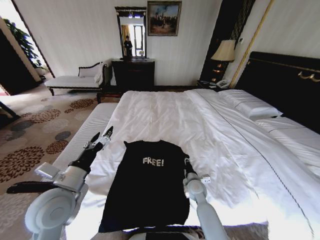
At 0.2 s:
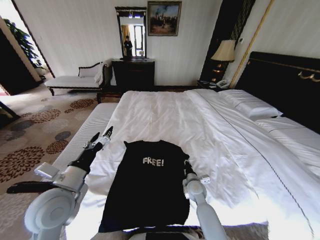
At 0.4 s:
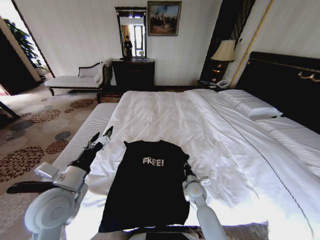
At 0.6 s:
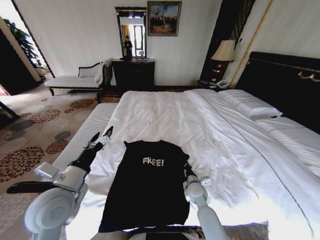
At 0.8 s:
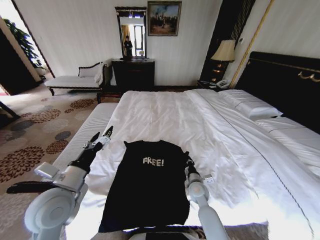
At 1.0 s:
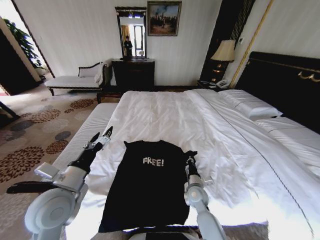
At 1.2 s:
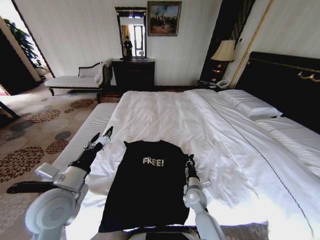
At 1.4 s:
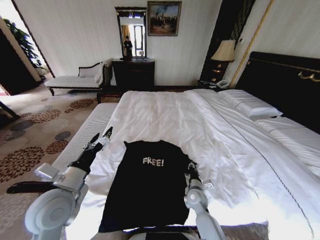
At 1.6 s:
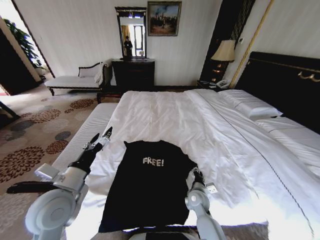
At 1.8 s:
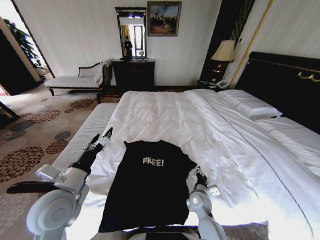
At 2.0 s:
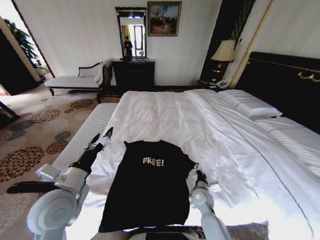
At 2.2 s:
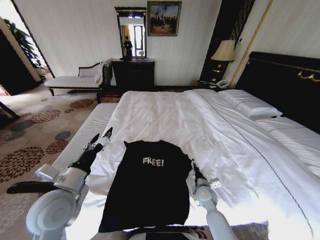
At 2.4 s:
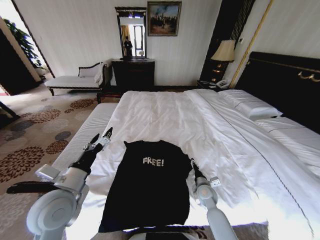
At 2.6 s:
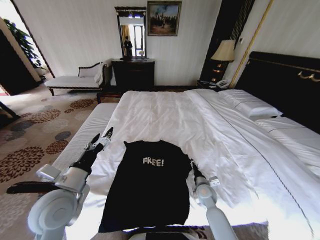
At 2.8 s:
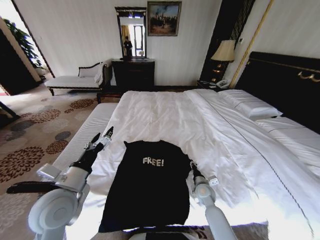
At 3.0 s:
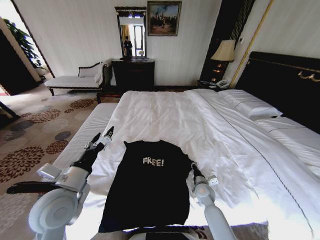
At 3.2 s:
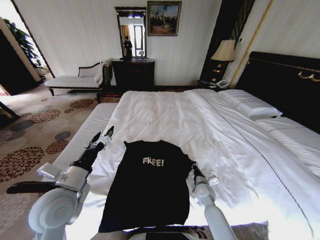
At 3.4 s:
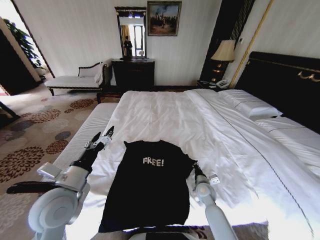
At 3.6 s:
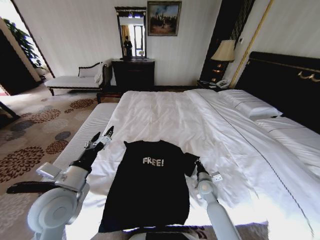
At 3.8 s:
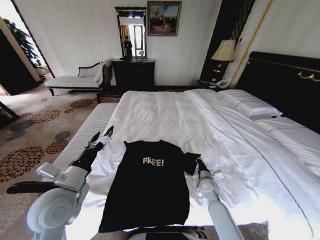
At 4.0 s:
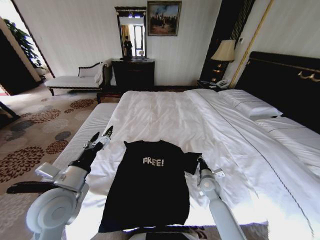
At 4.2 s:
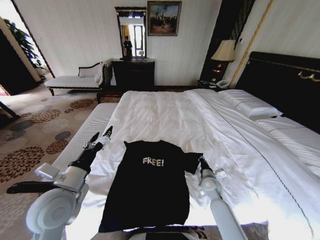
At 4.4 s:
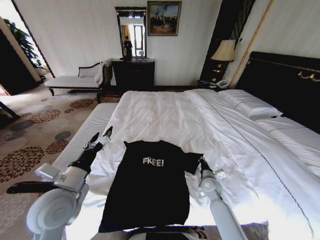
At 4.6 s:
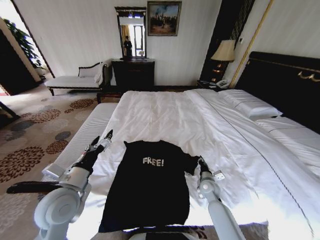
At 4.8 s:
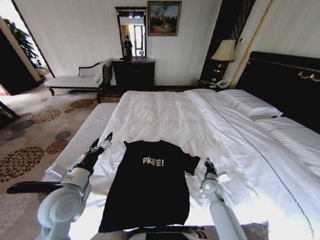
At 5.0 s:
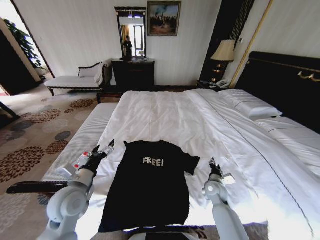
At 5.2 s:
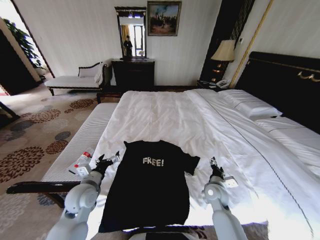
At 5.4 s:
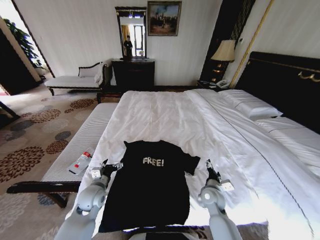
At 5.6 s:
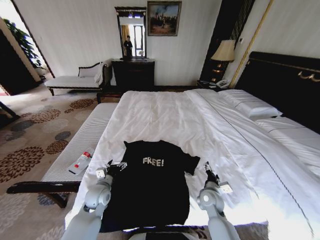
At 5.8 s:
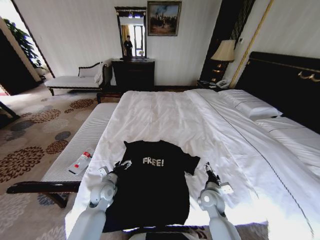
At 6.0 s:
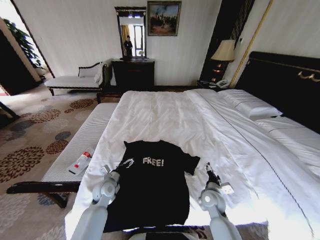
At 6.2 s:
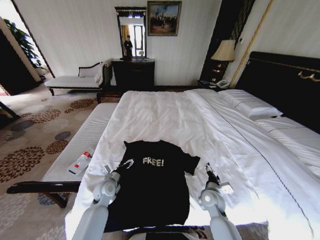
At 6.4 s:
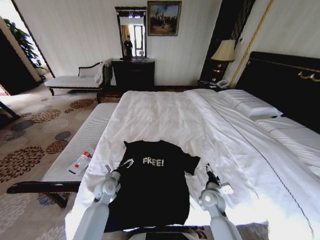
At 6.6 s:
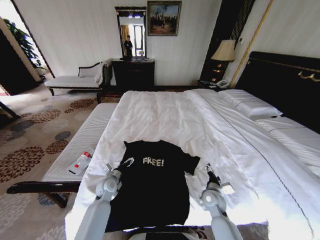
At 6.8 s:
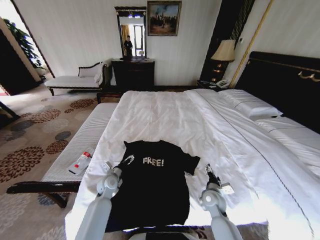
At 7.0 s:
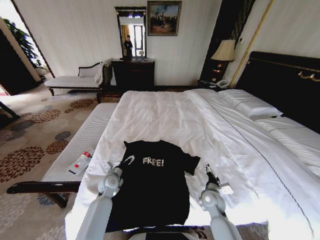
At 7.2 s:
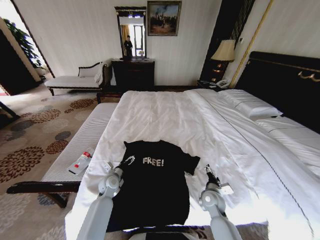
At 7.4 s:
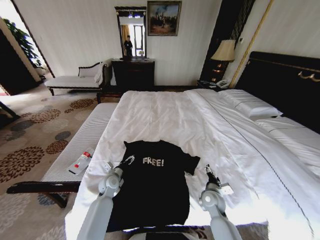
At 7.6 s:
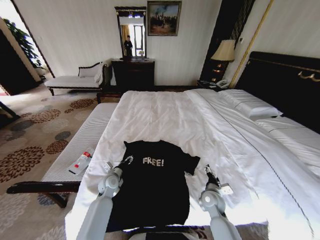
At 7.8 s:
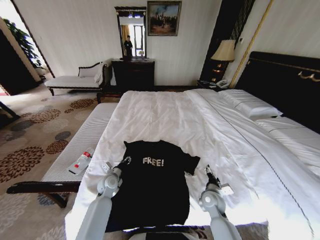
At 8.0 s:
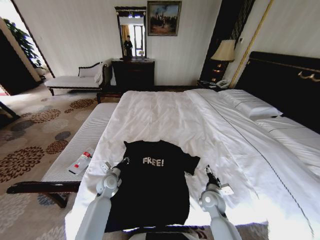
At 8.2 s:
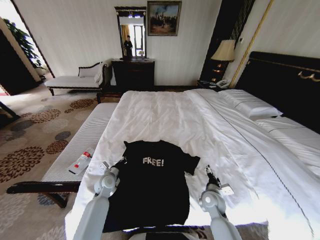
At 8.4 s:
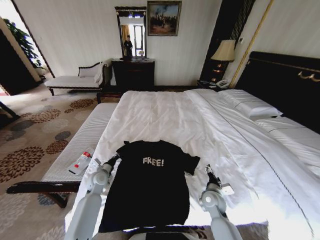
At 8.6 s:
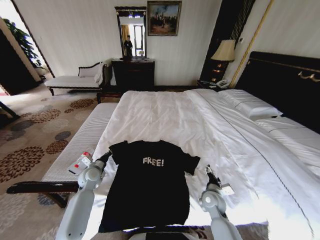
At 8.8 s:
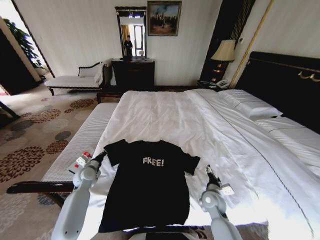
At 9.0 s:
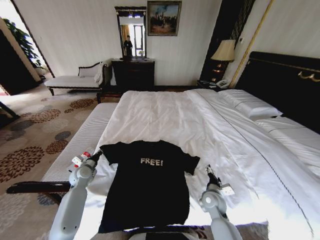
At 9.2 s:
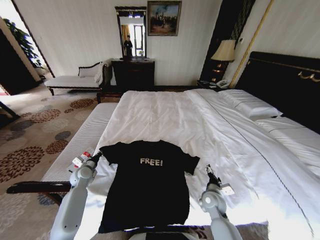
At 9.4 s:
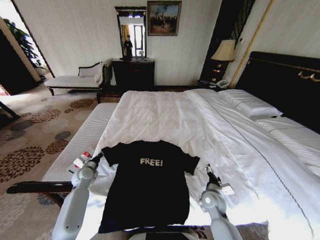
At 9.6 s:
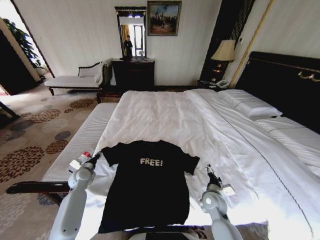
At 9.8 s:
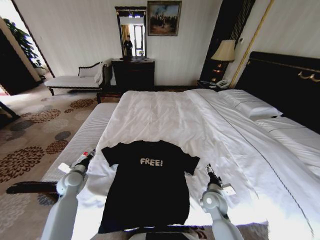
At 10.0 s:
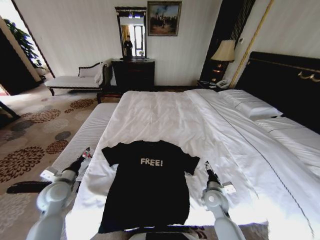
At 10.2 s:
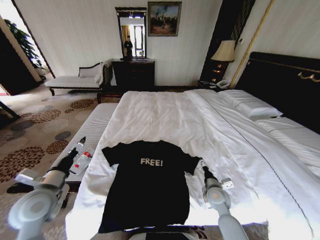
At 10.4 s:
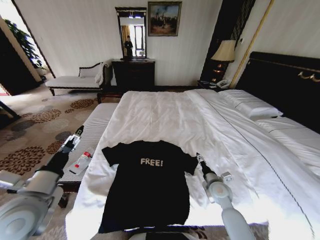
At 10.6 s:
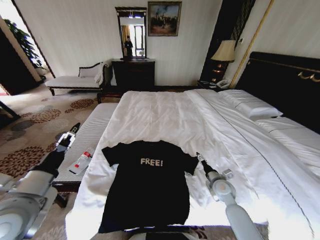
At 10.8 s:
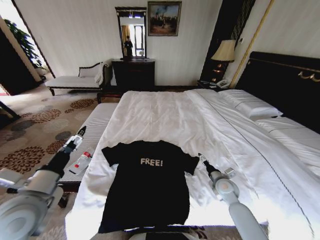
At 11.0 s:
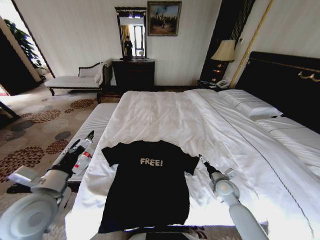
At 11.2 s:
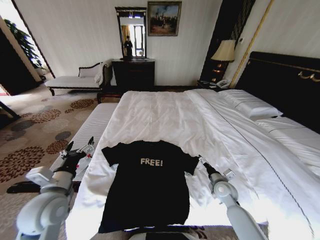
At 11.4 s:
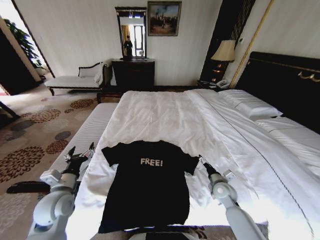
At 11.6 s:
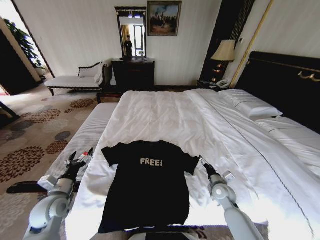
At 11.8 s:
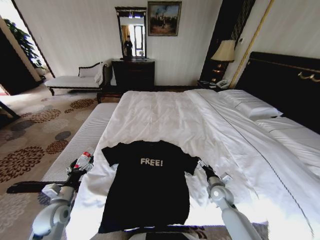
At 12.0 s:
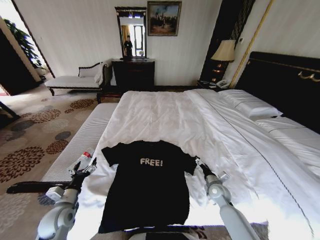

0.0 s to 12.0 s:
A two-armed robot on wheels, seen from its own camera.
Task of the whole recording: Fold the clothes on the bed.
0.0 to 1.6 s: The right gripper closes and opens again.
1.6 to 3.0 s: The right gripper changes place by roughly 5 cm, and opens, then closes again.
3.0 to 4.4 s: There are only small adjustments of the grippers.
4.4 to 6.0 s: The left gripper travels downward and forward by about 25 cm, while the right gripper travels backward by approximately 5 cm, and opens its fingers.
6.0 to 7.6 s: The grippers move only a little.
7.6 to 9.0 s: The left gripper heads to the left, covering roughly 15 cm, and closes.
9.0 to 10.4 s: The left gripper is displaced upward and backward by some 30 cm, and opens up; the right gripper changes place by about 5 cm.
10.4 to 12.0 s: The left gripper travels downward by about 20 cm. Meanwhile the right gripper shifts some 5 cm downward.

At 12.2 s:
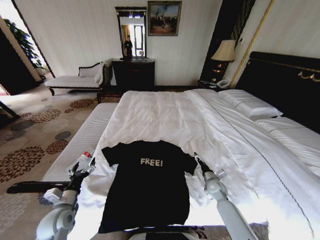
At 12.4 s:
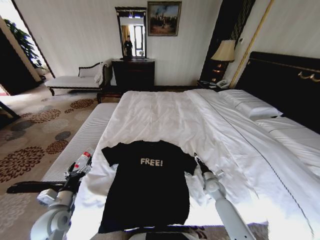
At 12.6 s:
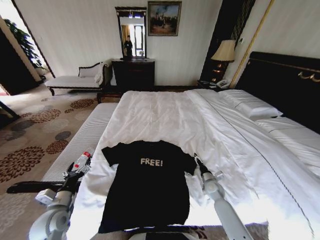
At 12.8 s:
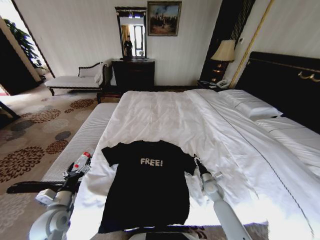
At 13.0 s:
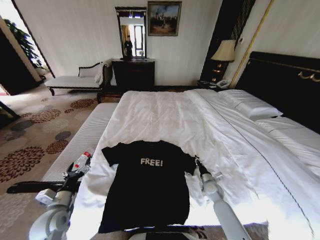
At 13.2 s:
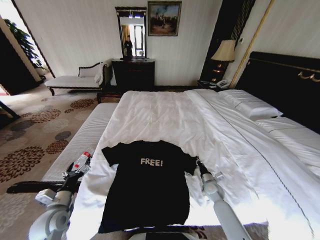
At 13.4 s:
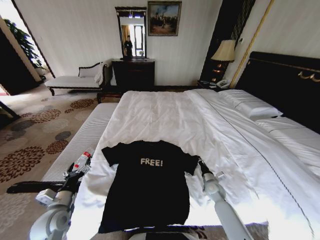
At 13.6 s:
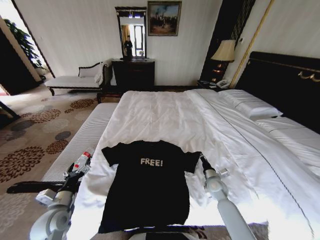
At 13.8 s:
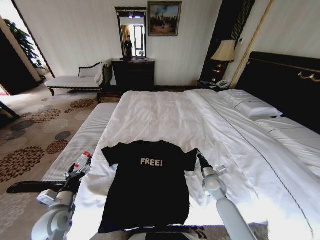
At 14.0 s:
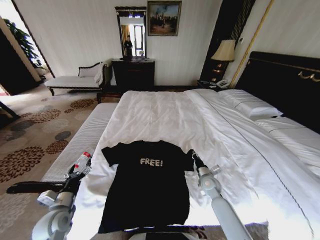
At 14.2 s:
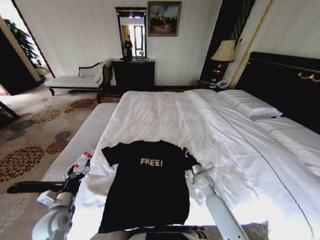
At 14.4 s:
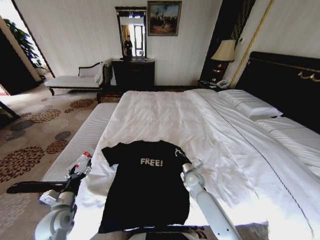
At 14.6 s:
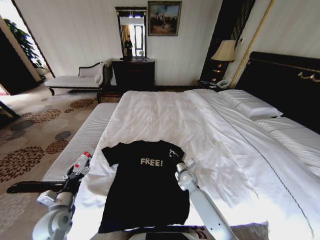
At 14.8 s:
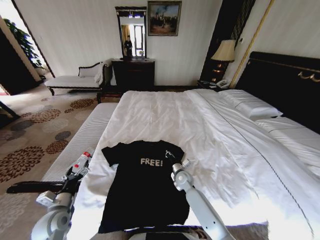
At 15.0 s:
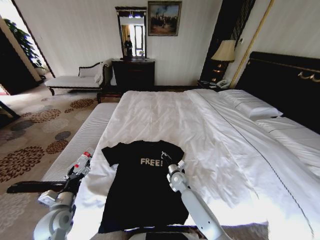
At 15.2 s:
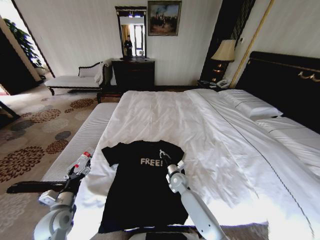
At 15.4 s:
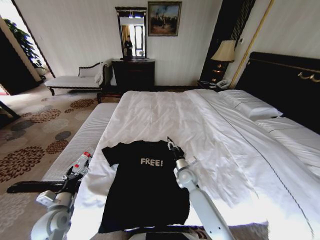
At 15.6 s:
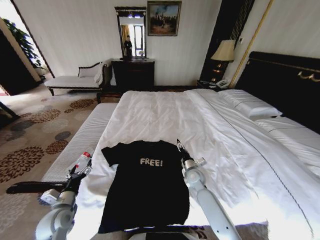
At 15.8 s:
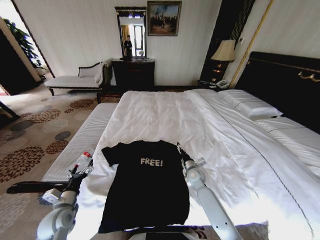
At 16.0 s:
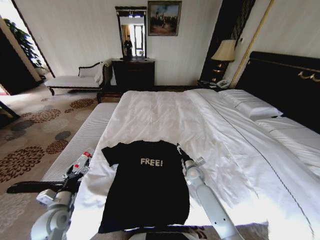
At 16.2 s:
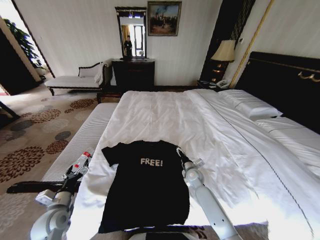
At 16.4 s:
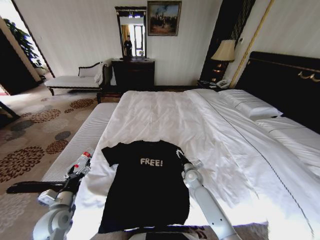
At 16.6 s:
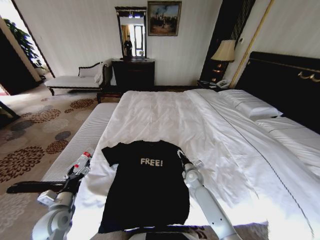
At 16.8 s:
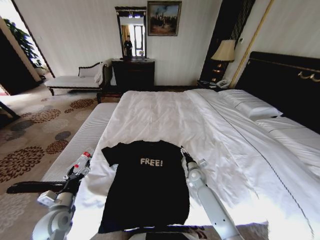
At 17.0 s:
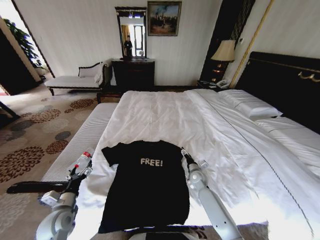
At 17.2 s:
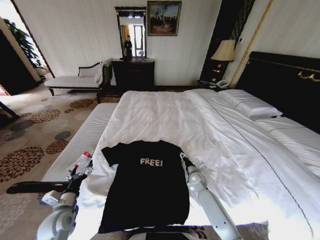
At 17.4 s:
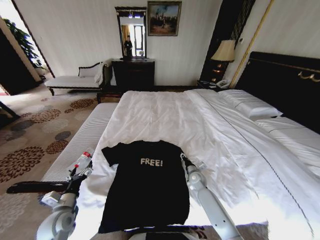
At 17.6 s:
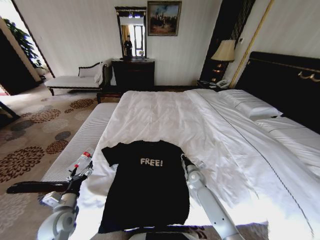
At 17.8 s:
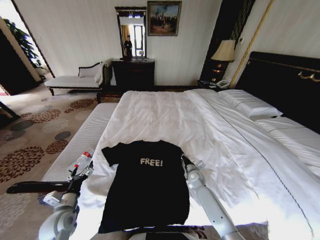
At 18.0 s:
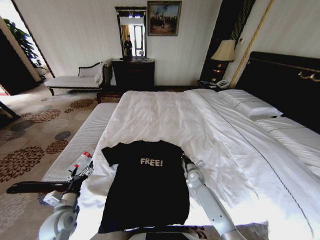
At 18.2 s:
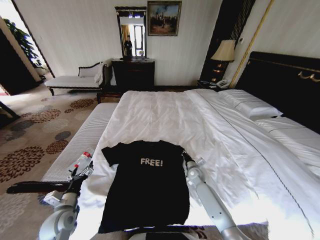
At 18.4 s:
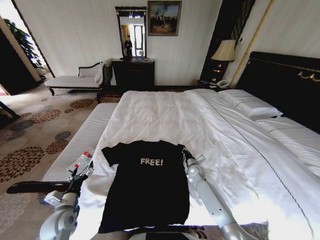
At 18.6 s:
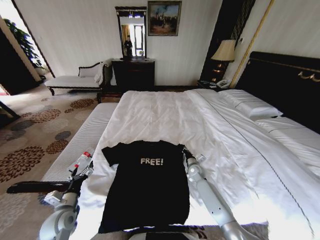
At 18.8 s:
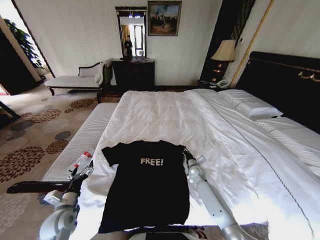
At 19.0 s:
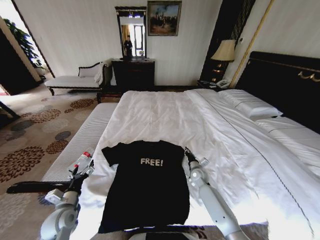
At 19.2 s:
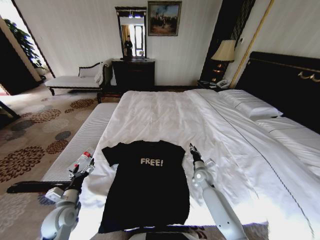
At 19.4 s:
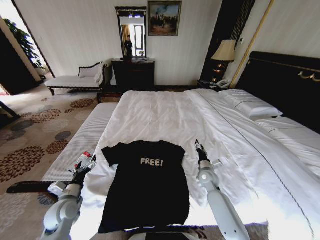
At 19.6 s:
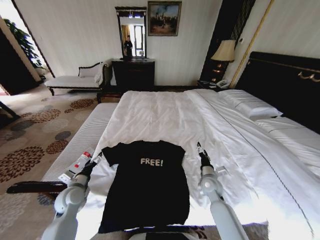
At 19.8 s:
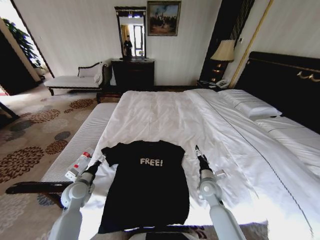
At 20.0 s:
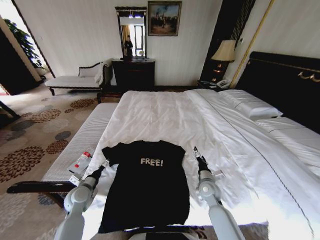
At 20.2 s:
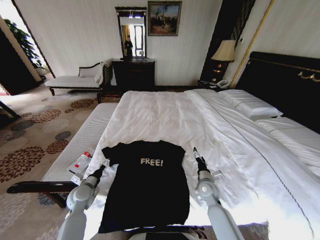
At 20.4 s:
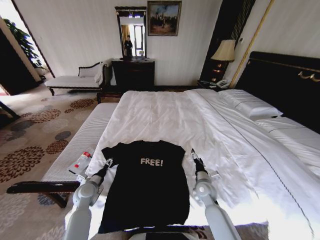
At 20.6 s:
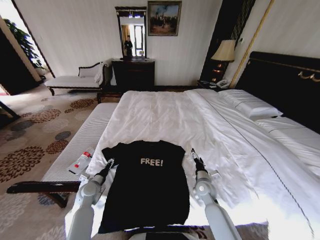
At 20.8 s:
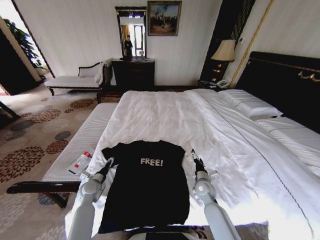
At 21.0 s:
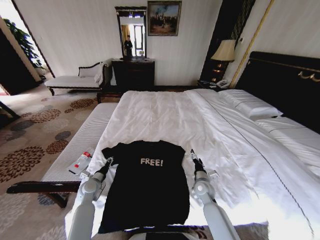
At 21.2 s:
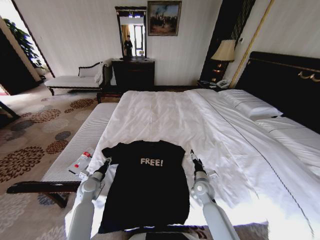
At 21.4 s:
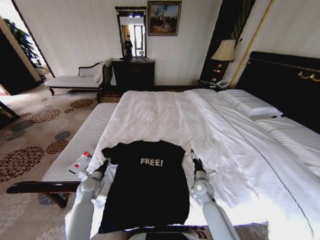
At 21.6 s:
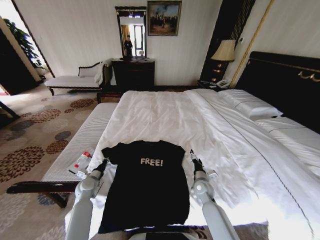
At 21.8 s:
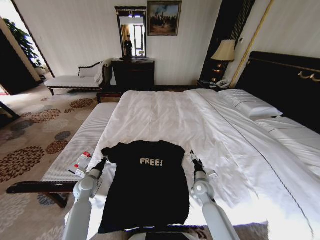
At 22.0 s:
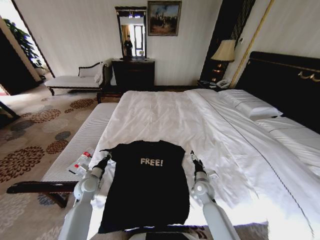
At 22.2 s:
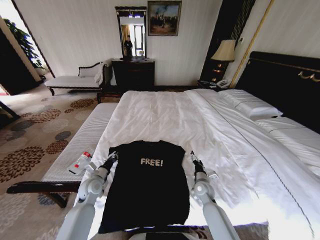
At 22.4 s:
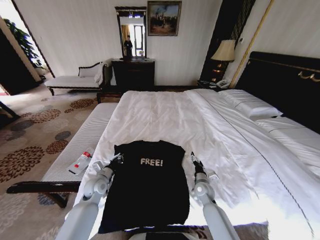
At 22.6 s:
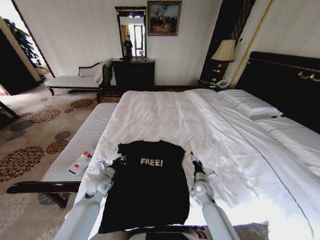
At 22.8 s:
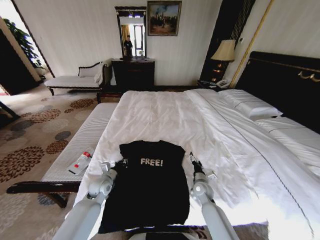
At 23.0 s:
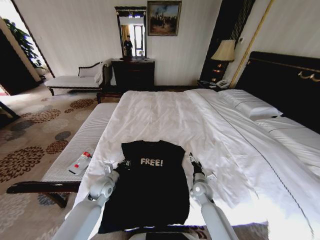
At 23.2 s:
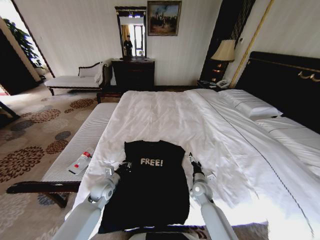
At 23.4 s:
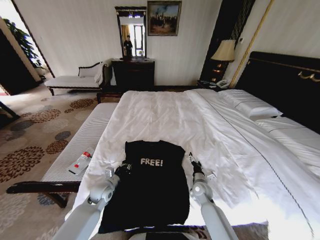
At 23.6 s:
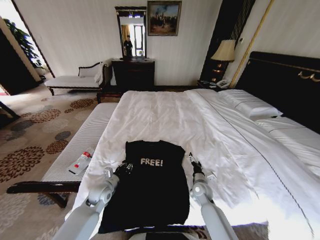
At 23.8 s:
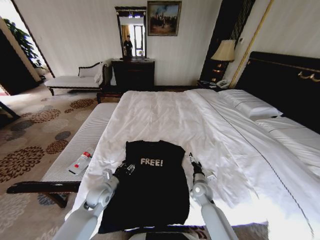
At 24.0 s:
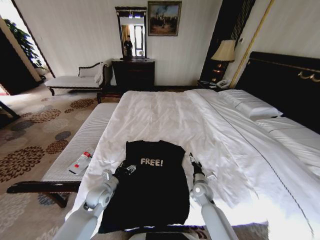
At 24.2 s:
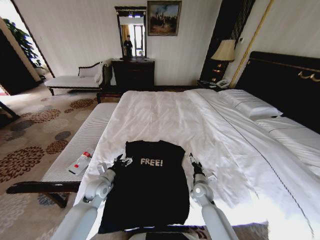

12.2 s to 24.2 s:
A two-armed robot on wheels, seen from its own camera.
Task of the whole recording: Fold the clothes on the bed.
12.2 to 13.8 s: The right gripper closes its fingers.
13.8 to 15.2 s: The right gripper travels to the left by roughly 15 cm.
15.2 to 16.6 s: The right gripper is displaced to the right by roughly 10 cm, and opens up.
16.6 to 18.2 s: The right gripper closes up.
18.2 to 19.8 s: The left gripper goes some 10 cm forward; the right gripper moves backward and upward, roughly 10 cm, and opens.
19.8 to 21.2 s: The left gripper goes roughly 5 cm downward, and closes up.
21.2 to 22.6 s: The left gripper travels to the right by about 5 cm, and closes.
22.6 to 24.2 s: The left gripper opens up.
